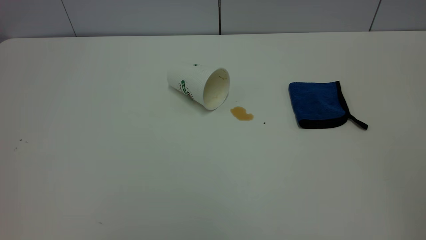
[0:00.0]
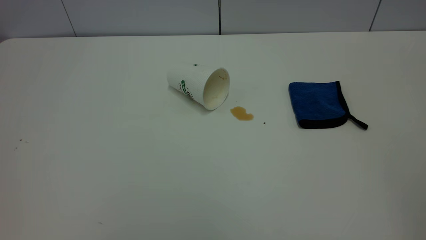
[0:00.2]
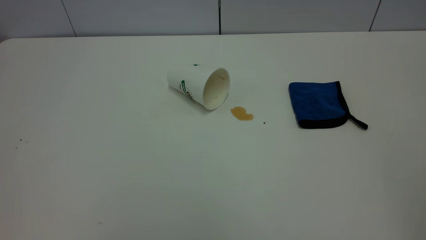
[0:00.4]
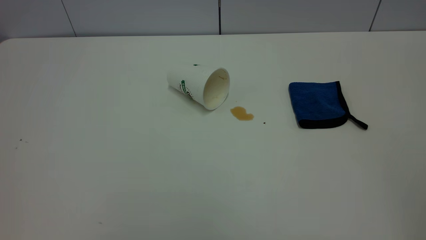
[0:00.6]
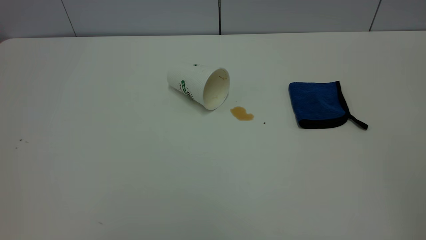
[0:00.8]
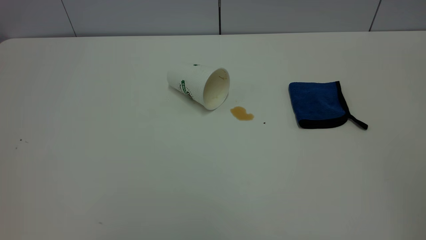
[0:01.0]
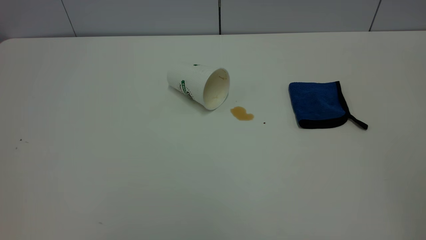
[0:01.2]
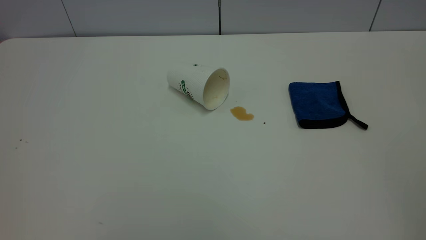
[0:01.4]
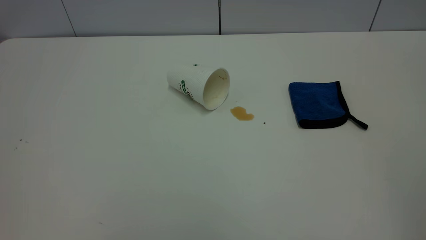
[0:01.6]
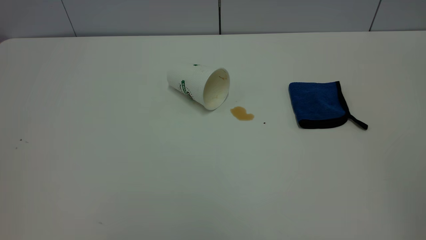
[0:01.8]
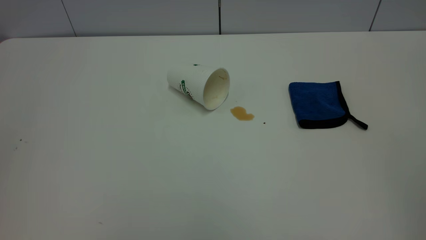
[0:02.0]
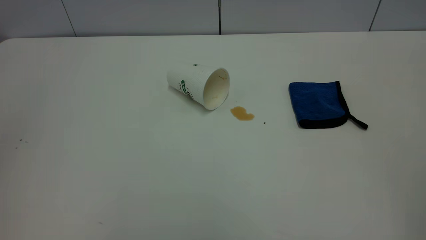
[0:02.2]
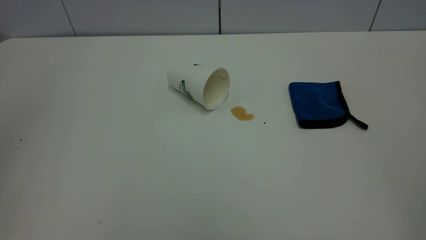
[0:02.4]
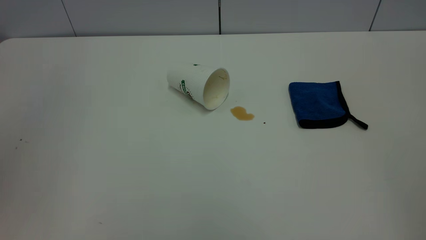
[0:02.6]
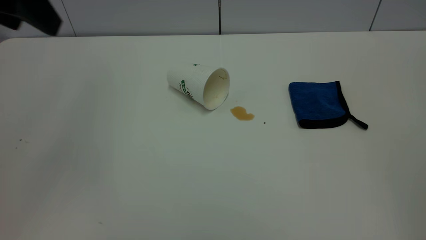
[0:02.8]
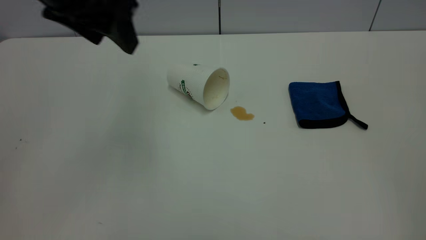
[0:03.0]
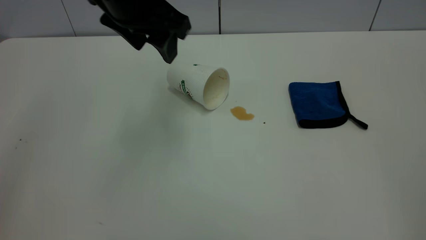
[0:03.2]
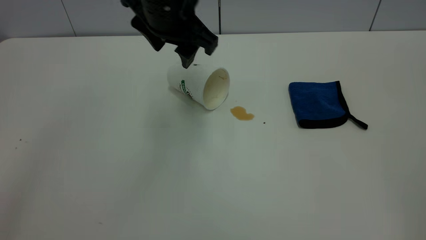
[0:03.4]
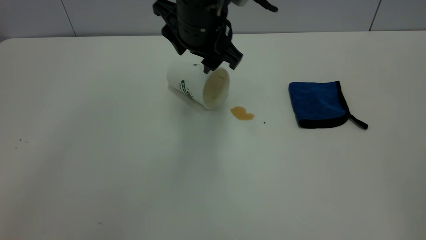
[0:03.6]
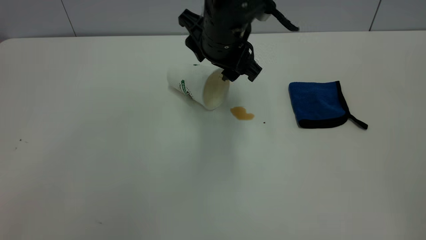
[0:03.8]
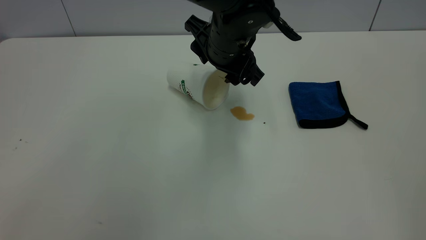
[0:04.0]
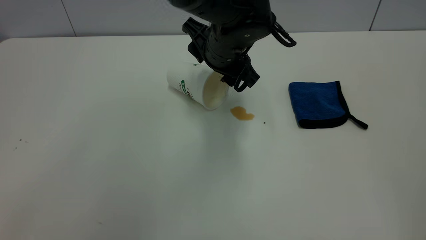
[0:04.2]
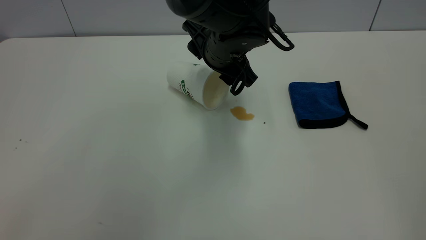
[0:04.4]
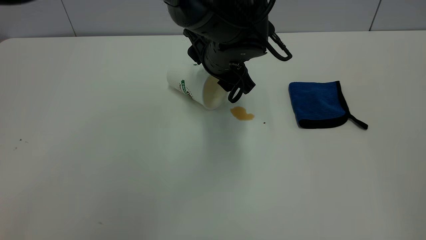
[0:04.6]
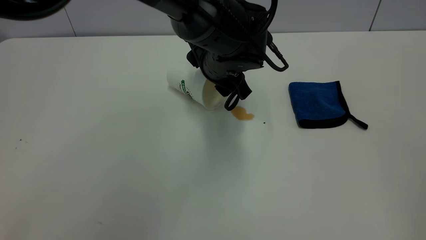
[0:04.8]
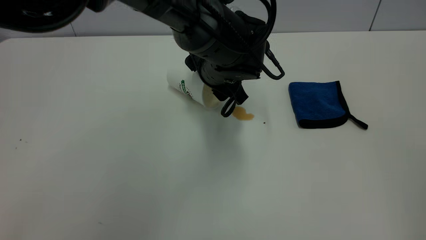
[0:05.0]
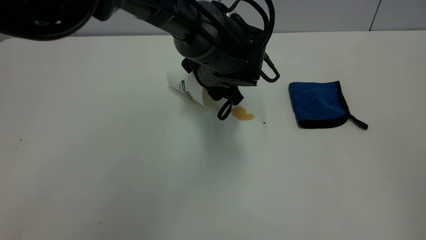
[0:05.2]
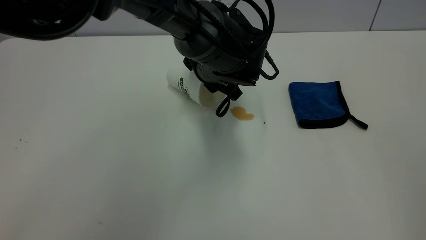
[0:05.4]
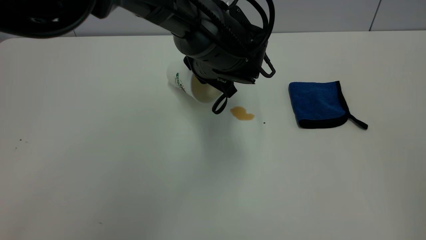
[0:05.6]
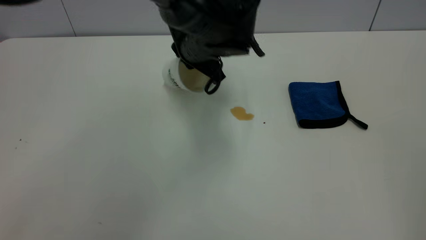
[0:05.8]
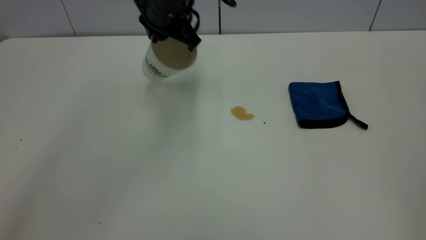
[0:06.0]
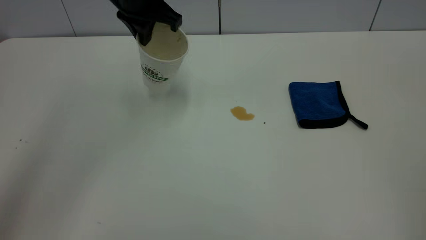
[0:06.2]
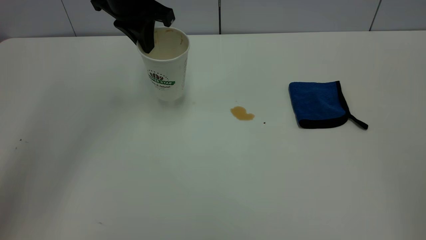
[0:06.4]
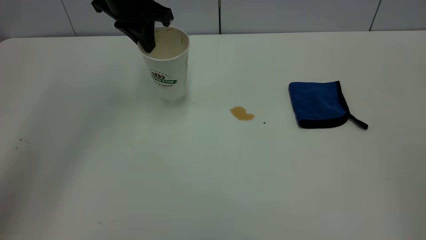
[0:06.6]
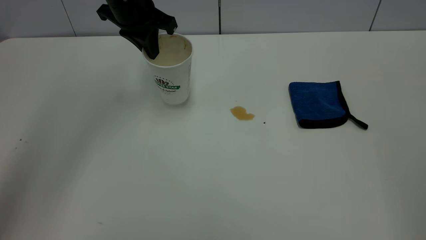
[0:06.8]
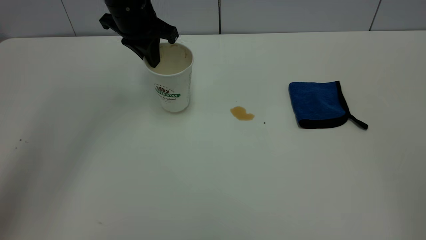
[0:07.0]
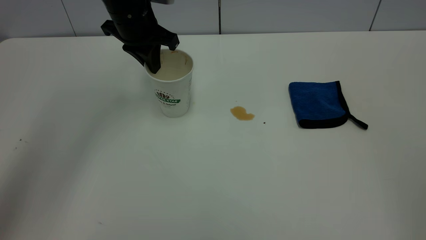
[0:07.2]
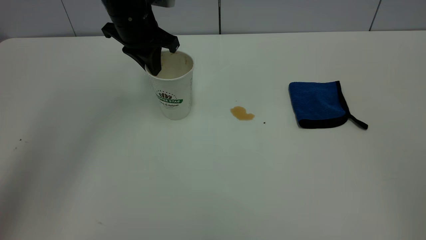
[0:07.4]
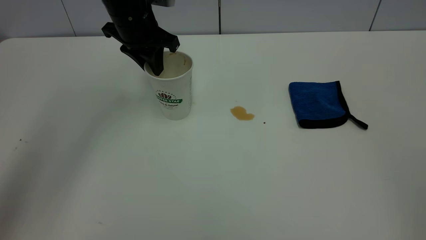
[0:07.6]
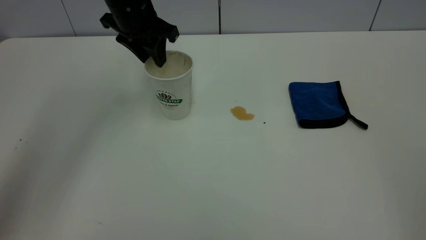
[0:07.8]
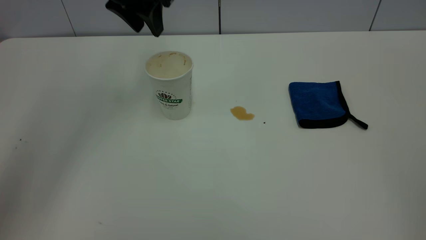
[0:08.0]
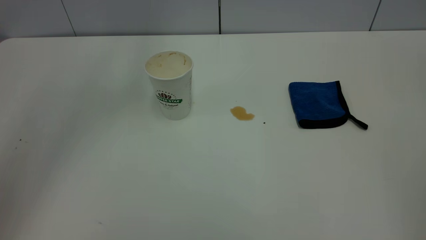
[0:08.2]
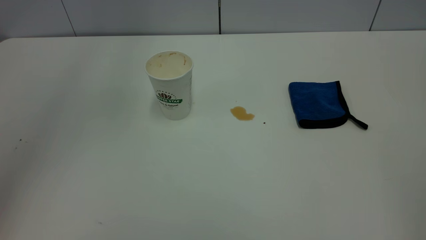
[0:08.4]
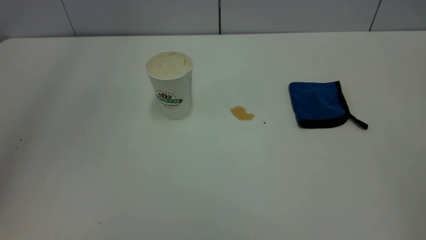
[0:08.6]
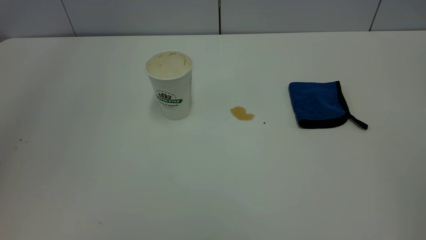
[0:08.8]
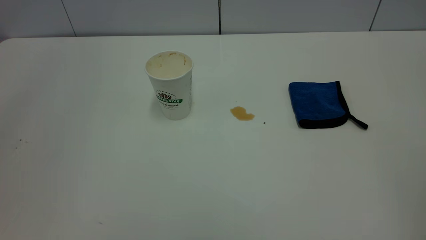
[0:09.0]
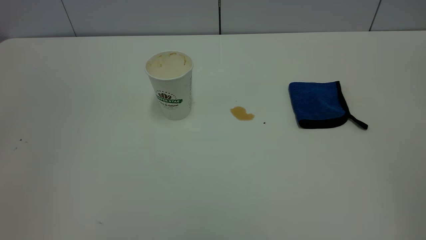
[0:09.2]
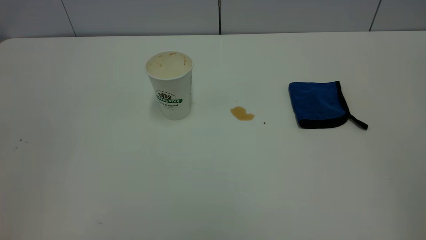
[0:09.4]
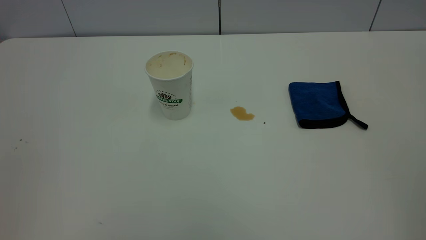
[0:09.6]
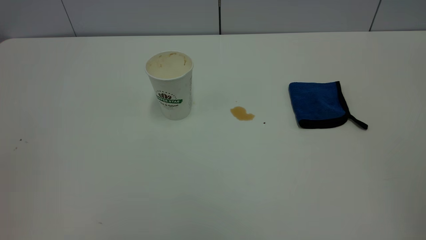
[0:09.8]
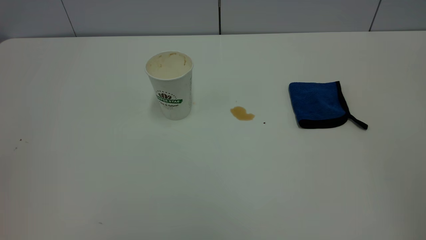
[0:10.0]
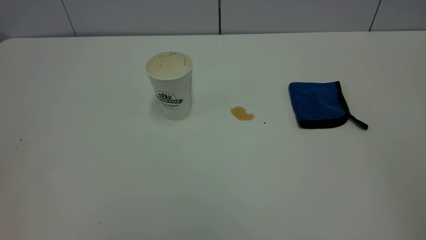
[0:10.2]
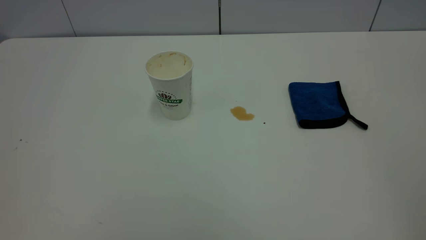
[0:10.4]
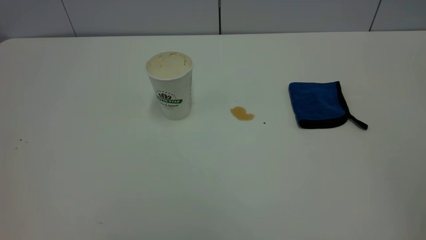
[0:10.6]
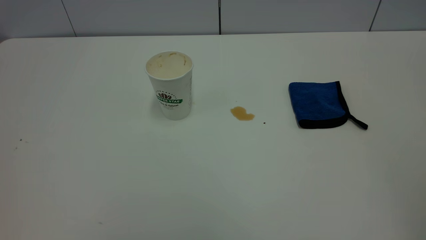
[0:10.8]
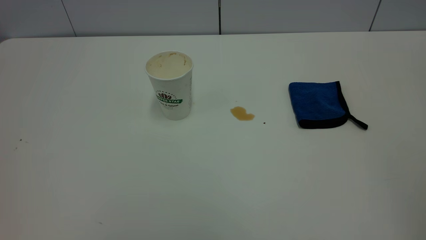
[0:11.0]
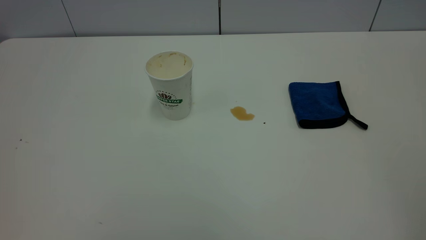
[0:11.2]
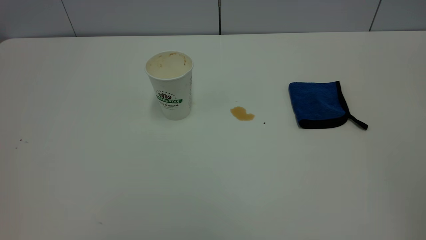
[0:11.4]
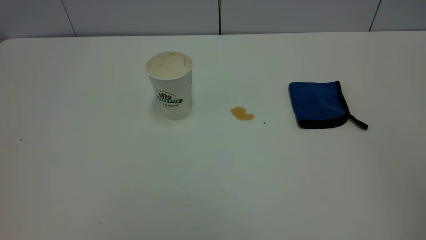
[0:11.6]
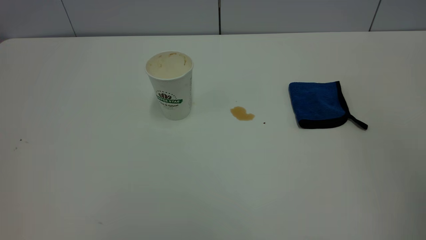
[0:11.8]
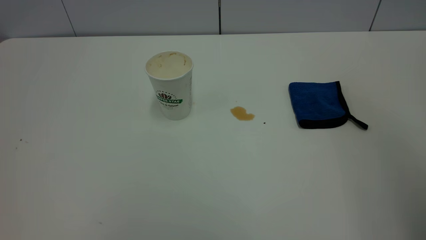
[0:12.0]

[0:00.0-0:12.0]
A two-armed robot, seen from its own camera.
Task of the whole recording: the left gripper pick up the fallen cup and place it upright, the right gripper grasp the blue rag and wipe the tea stain on the table, the right gripper put the blue rag back in its original position.
Step, 0:00.0 to 0:07.8: Stand the paper cup upright.
0:00.0 to 0:01.6: Both grippers stay about where they are.
0:01.6 to 0:03.0: The left gripper travels forward and to the right by approximately 35 cm.
0:03.0 to 0:04.4: The left gripper travels to the right, downward and forward by about 25 cm.
0:04.4 to 0:06.0: The left gripper goes roughly 10 cm to the left and upward, and closes.
0:06.0 to 0:07.6: The left gripper heads to the left, covering roughly 5 cm, and opens.
0:07.6 to 0:09.0: The left gripper moves upward and backward, approximately 40 cm, and opens its fingers.

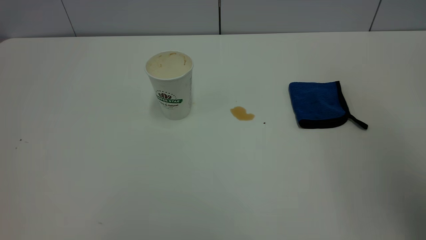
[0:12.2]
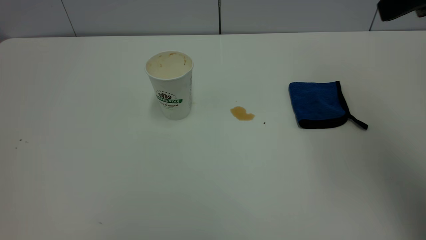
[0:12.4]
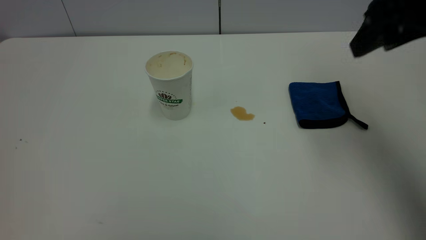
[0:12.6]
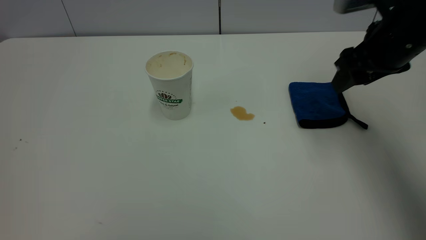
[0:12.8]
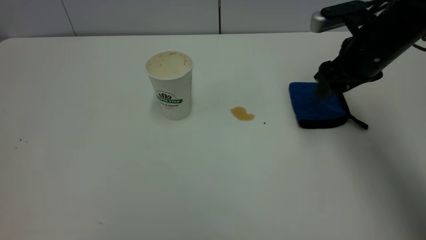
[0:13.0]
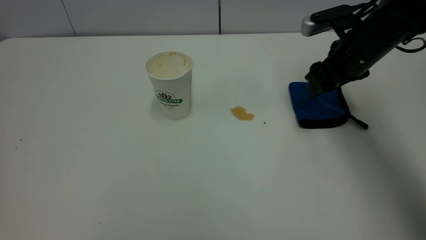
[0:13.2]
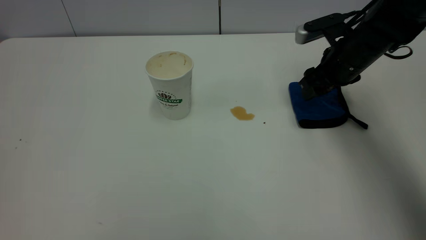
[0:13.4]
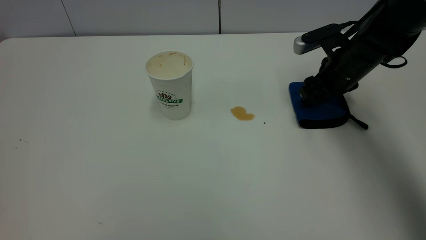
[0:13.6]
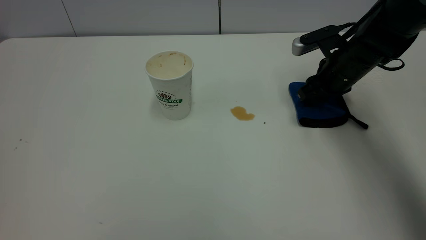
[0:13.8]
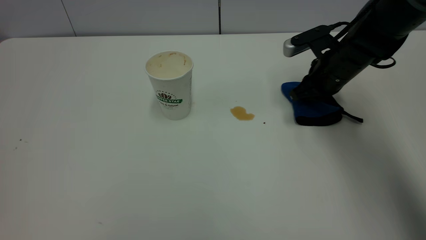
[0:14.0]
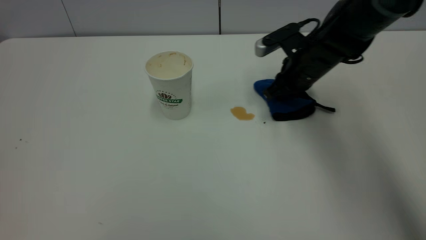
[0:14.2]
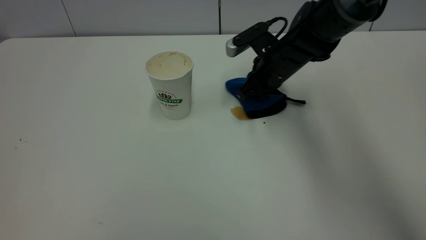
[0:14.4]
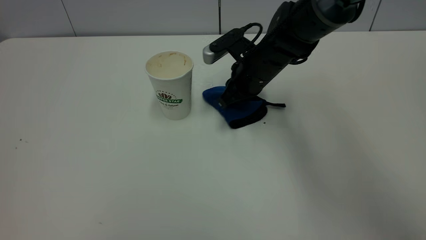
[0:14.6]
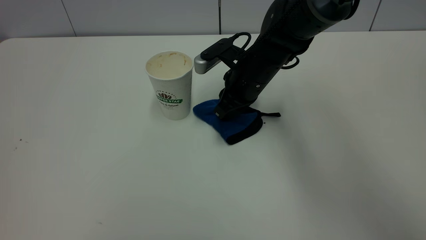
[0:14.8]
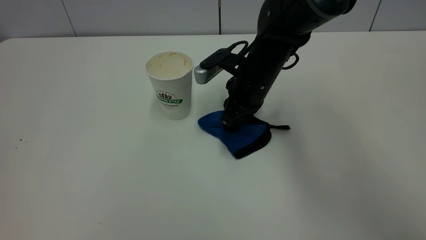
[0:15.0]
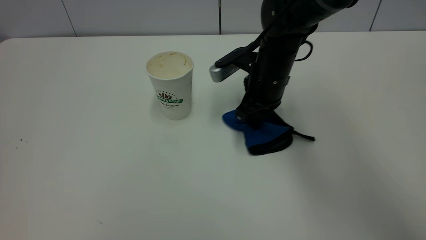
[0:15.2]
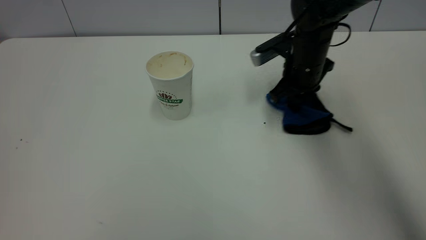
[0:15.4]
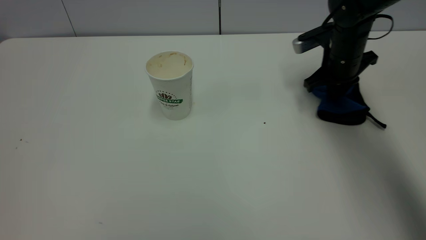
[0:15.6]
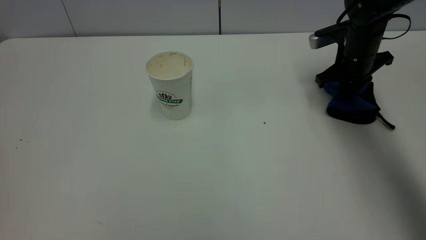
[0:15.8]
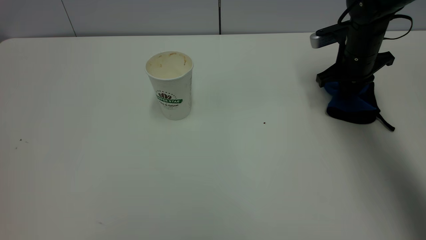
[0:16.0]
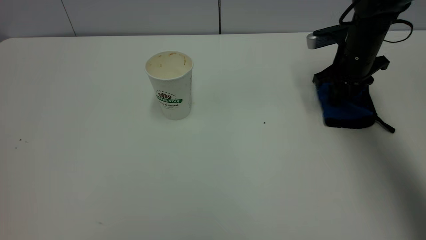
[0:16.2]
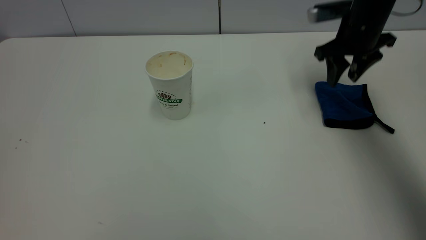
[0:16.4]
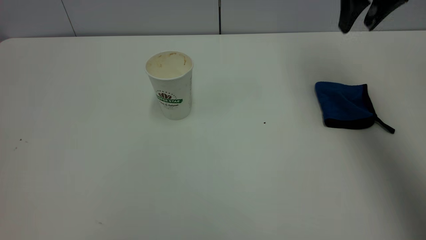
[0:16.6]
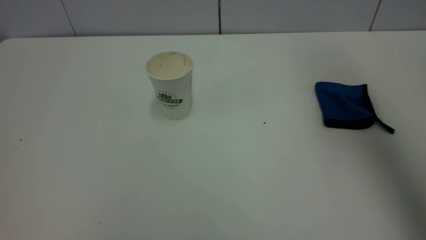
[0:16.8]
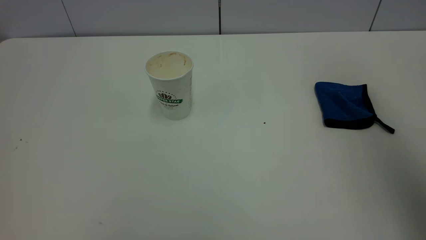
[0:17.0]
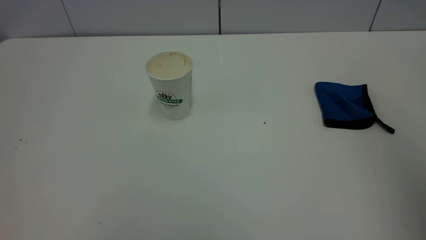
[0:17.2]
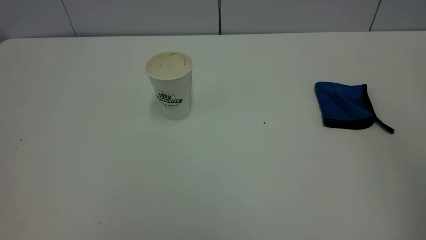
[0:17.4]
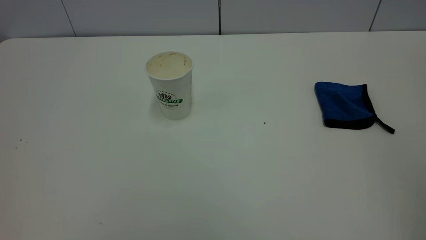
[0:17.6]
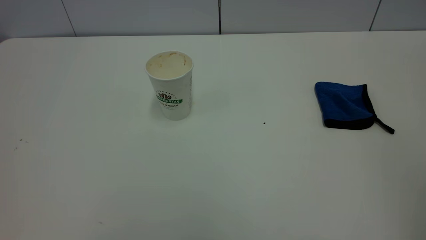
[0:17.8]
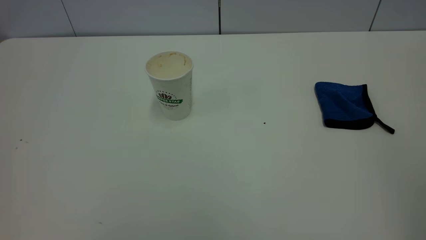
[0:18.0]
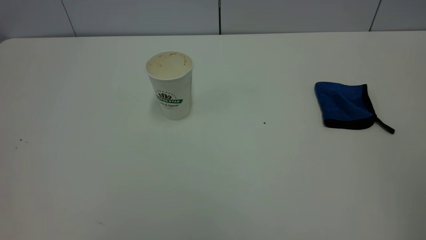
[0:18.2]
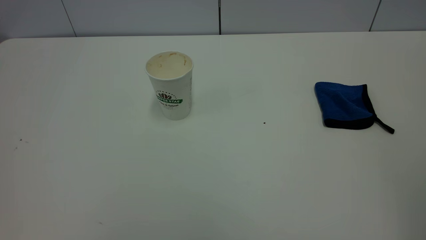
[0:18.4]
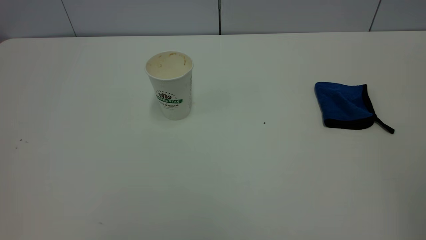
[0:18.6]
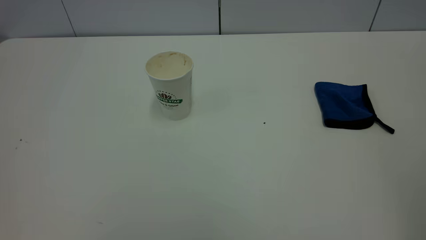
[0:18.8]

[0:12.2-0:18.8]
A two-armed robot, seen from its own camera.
Task of the whole recording: the left gripper pick up the fallen cup and place it upright, the right gripper grasp the blue rag and wipe the tea stain on the table, the right gripper put the blue rag back in its original position.
Step, 0:12.2 to 0:16.4: Wipe the stains off the table with a rag.
0:12.2 to 0:13.8: The right gripper shifts roughly 35 cm downward and forward, and closes its fingers.
0:13.8 to 0:15.4: The right gripper reaches about 15 cm to the left, then returns, and closes.
0:15.4 to 0:17.2: The right gripper is displaced backward and upward by about 50 cm, and opens.
